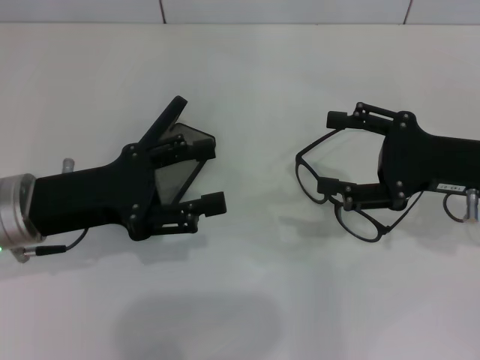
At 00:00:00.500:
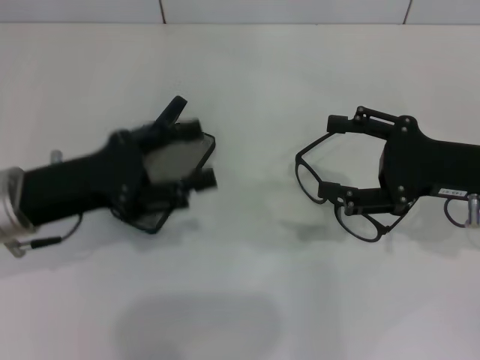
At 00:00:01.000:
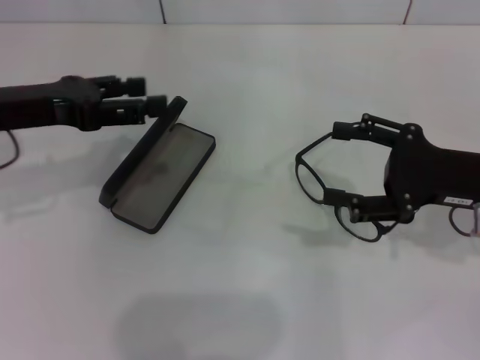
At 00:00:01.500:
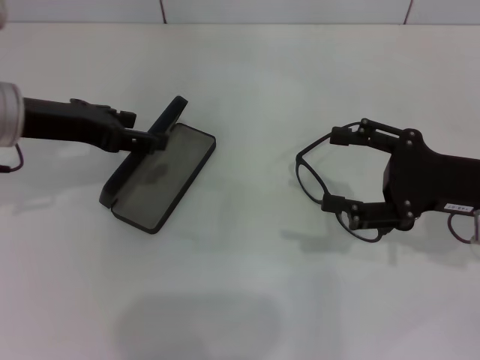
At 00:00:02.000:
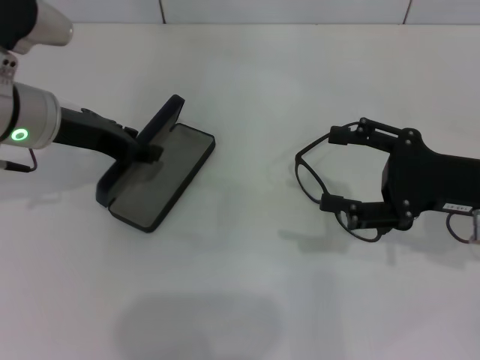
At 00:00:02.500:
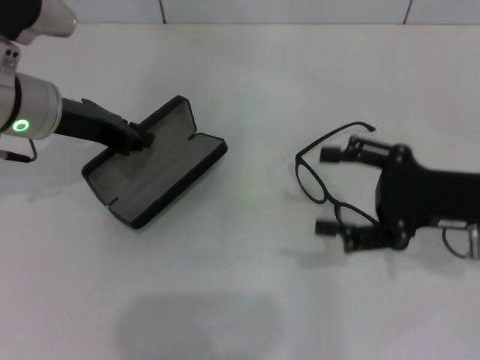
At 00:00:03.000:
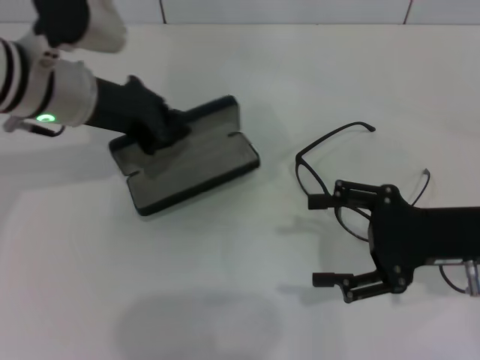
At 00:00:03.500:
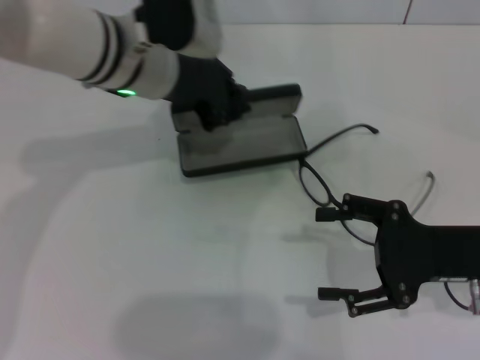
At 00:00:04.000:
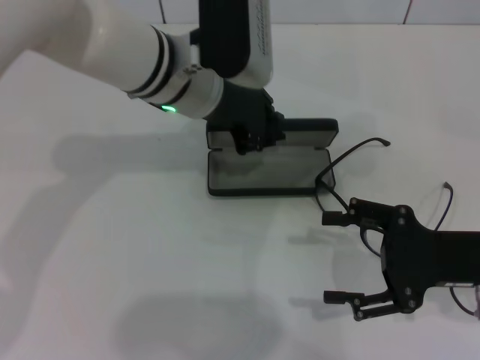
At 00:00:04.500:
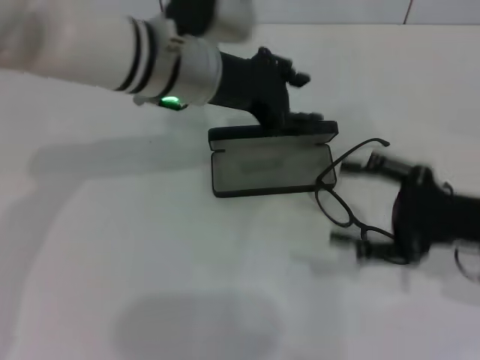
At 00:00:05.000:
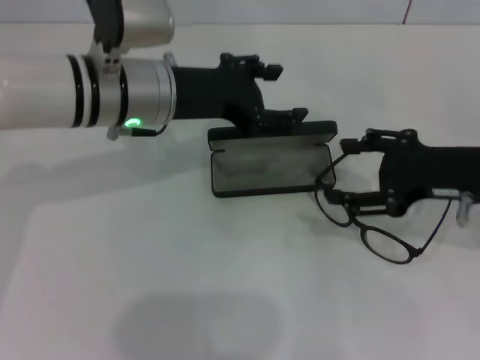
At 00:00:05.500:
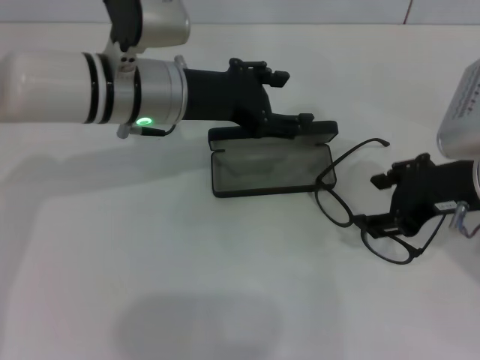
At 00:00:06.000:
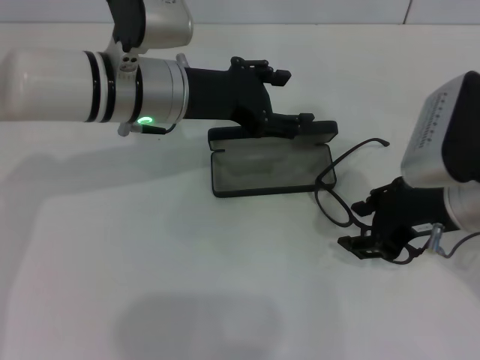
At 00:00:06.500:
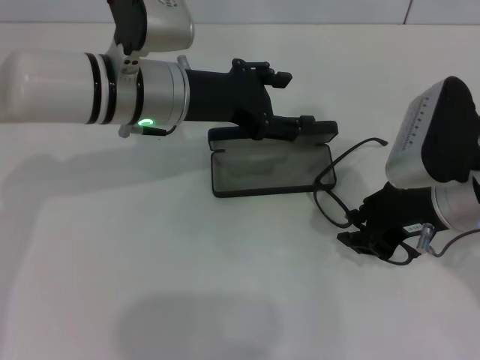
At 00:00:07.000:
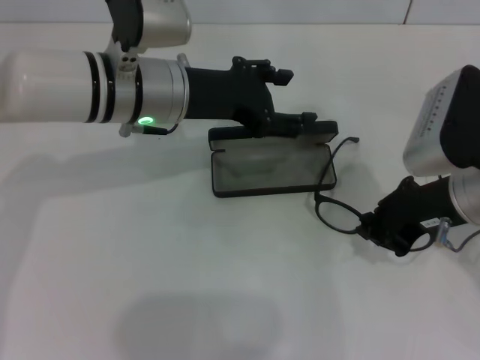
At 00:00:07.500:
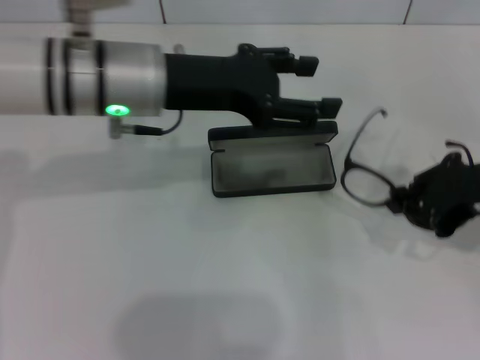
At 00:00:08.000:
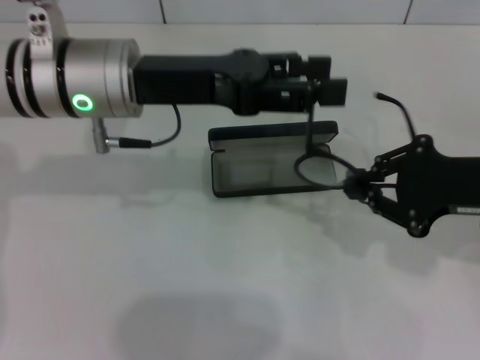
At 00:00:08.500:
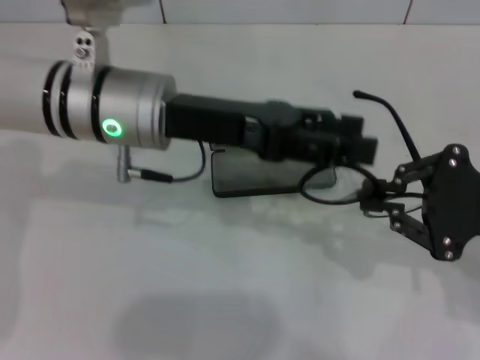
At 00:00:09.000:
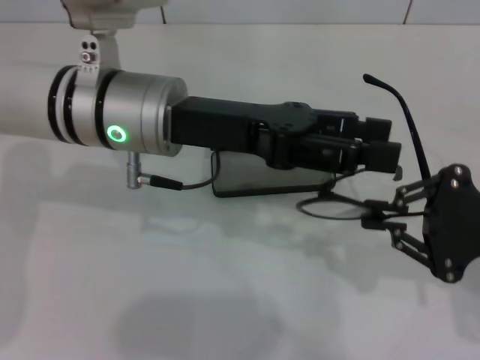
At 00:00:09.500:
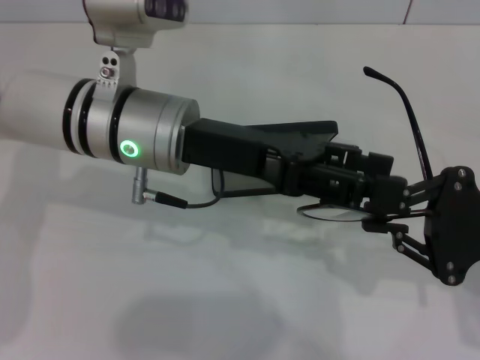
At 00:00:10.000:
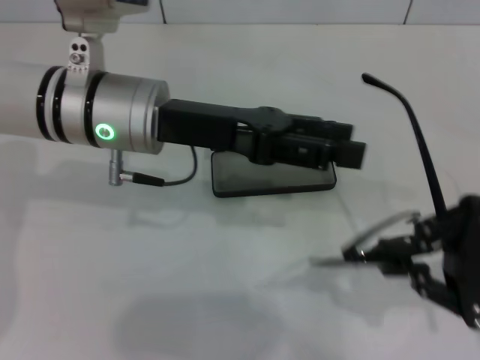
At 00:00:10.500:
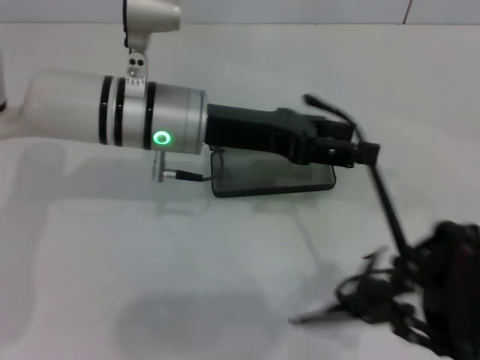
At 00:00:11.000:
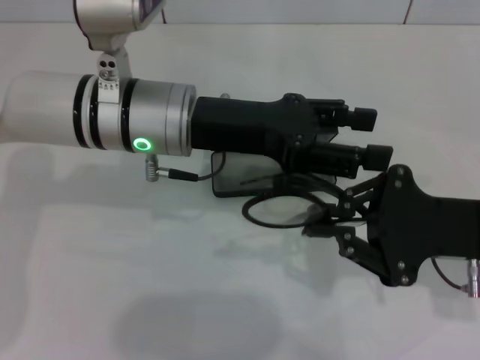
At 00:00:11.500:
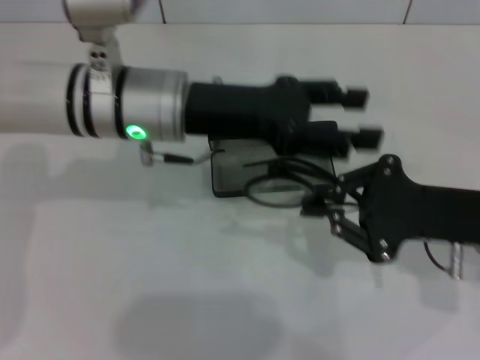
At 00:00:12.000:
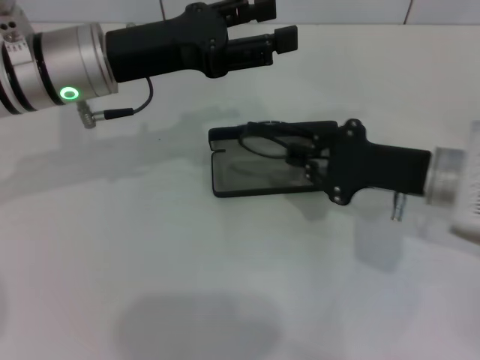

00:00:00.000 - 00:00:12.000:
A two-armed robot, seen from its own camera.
Step, 00:00:00.000 - 00:00:01.500: Grab the glasses case with your left hand.
Step, 00:00:02.500 - 00:00:04.000: Place the glasses case in the center of the table with your left hand.
Step, 00:00:04.500 - 00:00:06.500: Grab the eyeglass frame with your right hand.
Step, 00:00:07.000 - 00:00:11.000: Fold the frame with your left hand.
00:00:00.000 - 00:00:02.000: The left gripper heads forward, covering roughly 10 cm.
00:00:02.000 - 00:00:04.000: The left gripper shifts some 15 cm to the right, and closes up.
00:00:04.000 - 00:00:06.000: The right gripper travels upward and to the left by approximately 10 cm, while the left gripper opens up.
00:00:06.000 - 00:00:08.000: The right gripper shifts roughly 5 cm to the right, and closes.
00:00:08.000 - 00:00:10.000: The right gripper ends up roughly 5 cm from where it was.
00:00:10.000 - 00:00:12.000: The right gripper heads forward and to the left, covering approximately 10 cm. Meanwhile the left gripper shifts by approximately 5 cm.

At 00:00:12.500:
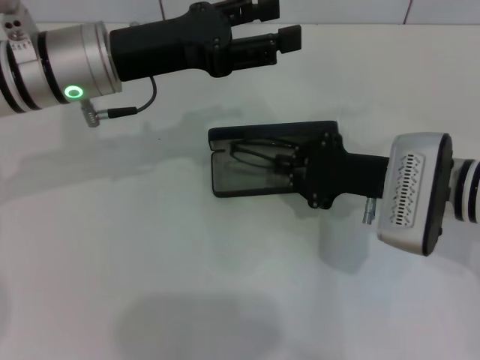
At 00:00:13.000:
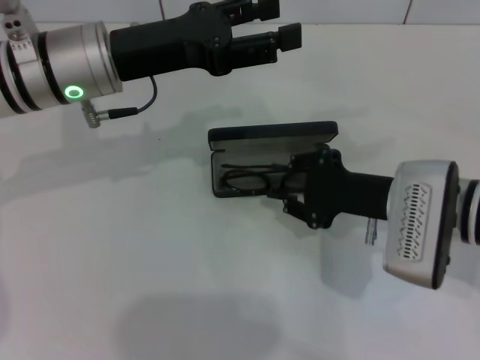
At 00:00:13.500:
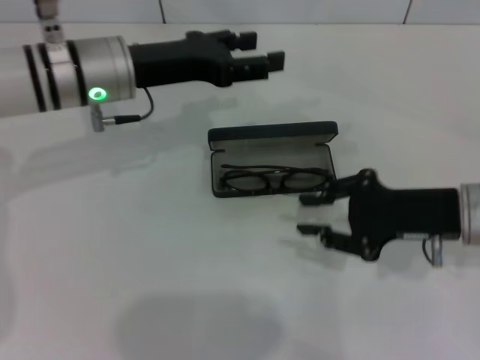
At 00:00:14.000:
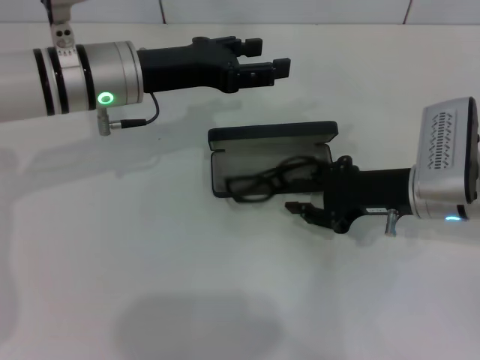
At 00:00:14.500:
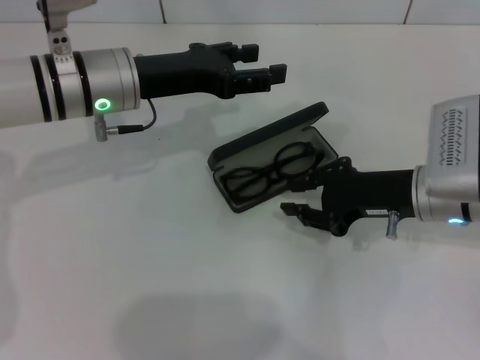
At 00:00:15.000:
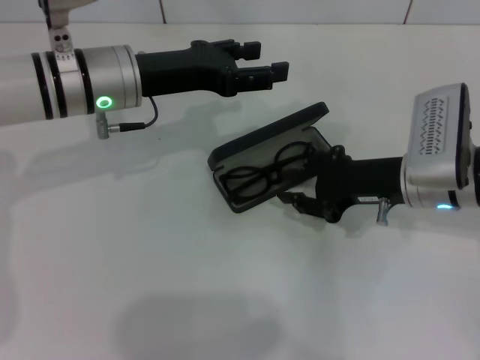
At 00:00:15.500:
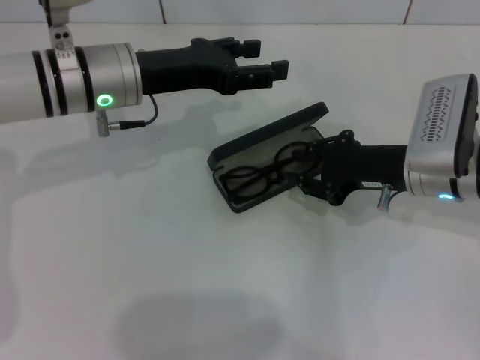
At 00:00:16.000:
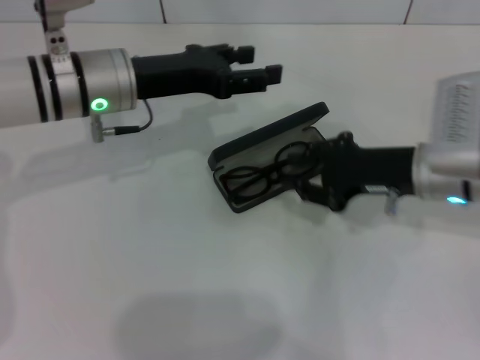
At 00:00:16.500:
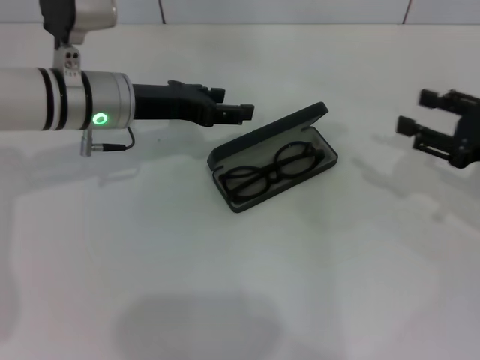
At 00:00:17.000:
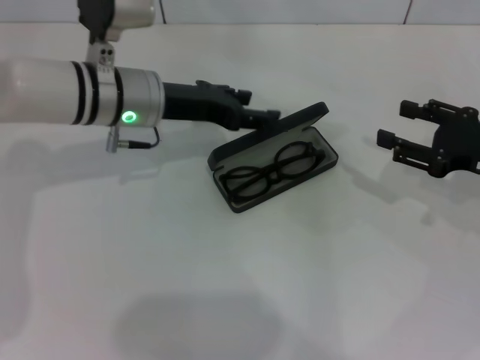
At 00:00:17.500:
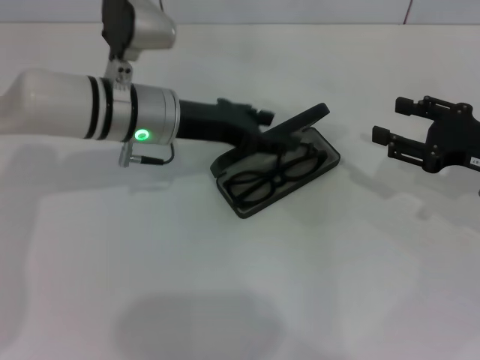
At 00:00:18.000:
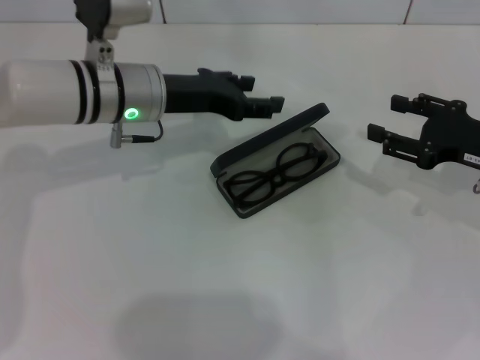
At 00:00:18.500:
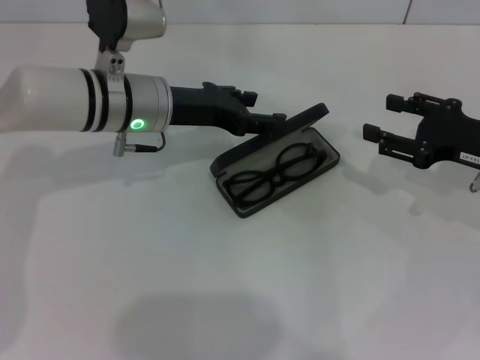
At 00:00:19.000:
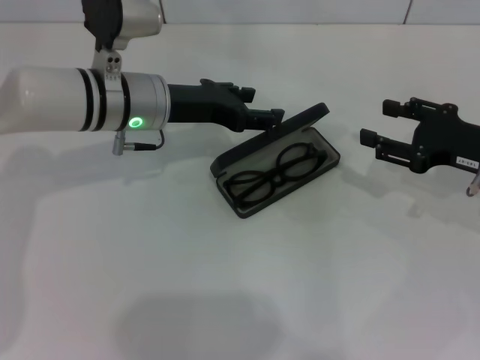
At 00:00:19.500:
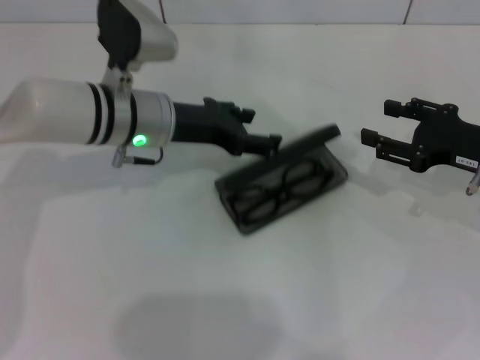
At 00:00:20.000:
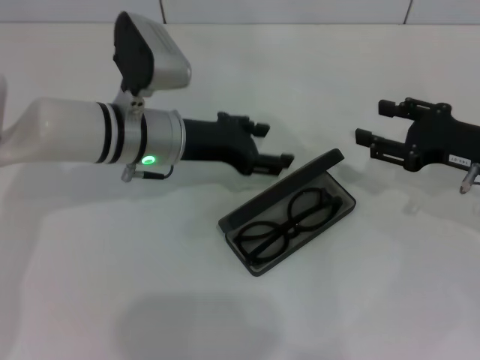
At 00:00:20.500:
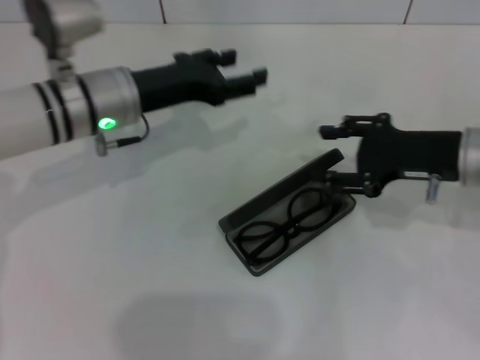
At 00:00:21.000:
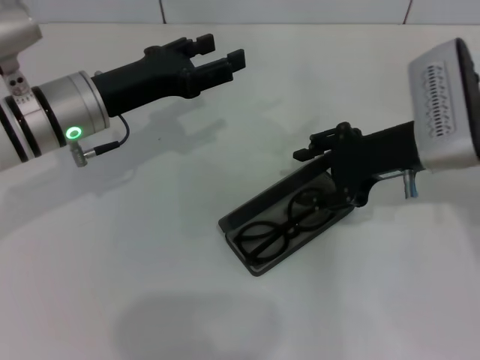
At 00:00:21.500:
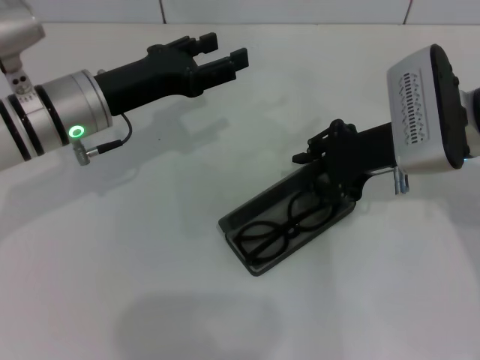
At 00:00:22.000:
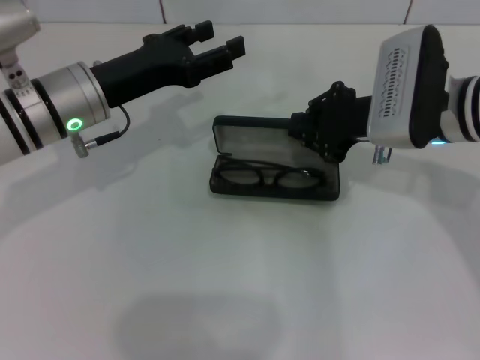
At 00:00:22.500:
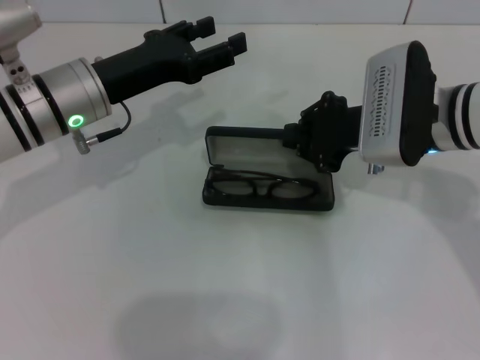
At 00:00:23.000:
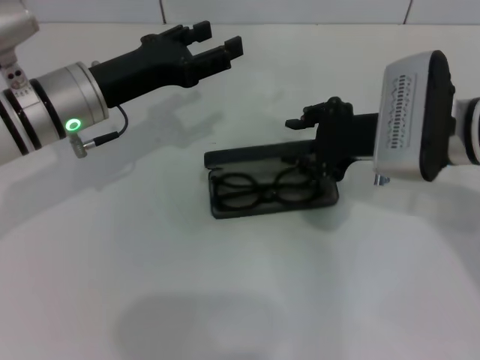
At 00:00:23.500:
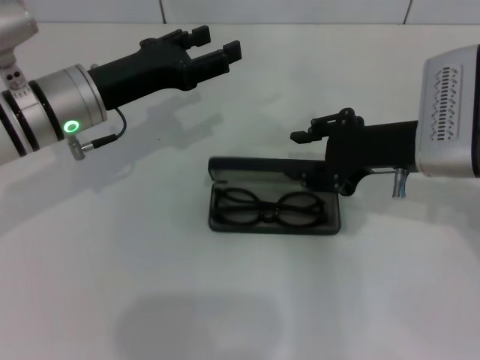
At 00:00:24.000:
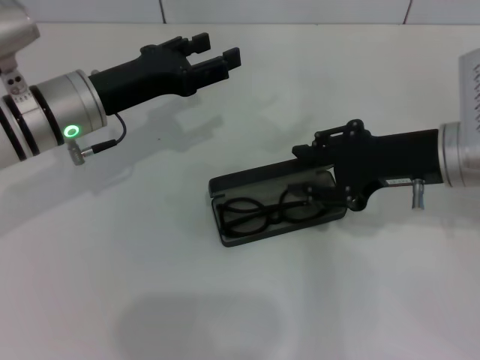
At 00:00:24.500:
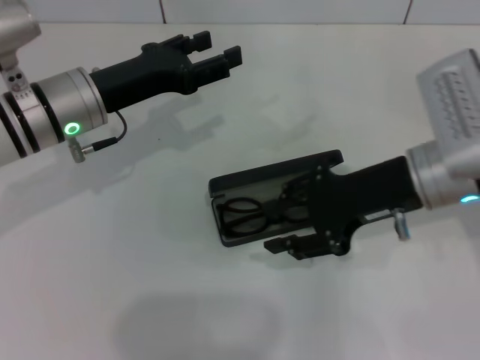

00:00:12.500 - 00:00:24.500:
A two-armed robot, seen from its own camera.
Step, 00:00:13.000 - 00:00:21.000: Grab the glasses case with your right hand.
Step, 00:00:21.500 - 00:00:23.500: Place the glasses case in the center of the table with your right hand.
00:00:14.500 - 00:00:16.500: The right gripper goes some 10 cm to the right.
00:00:16.500 - 00:00:18.500: The grippers move only a little.
00:00:18.500 - 00:00:20.500: The right gripper heads to the left, covering about 5 cm.
00:00:20.500 - 00:00:22.500: The right gripper shifts roughly 5 cm to the left, and closes up.
00:00:22.500 - 00:00:24.500: The right gripper opens.

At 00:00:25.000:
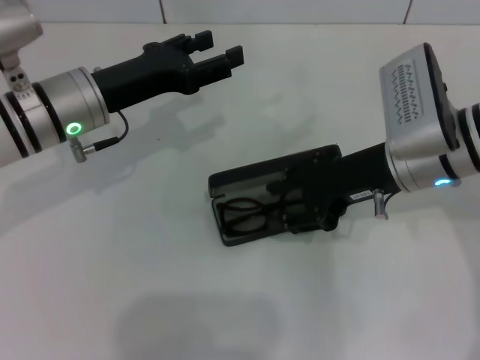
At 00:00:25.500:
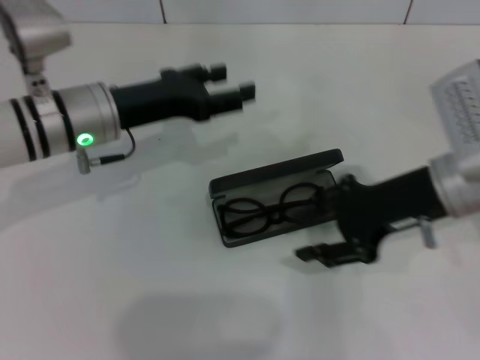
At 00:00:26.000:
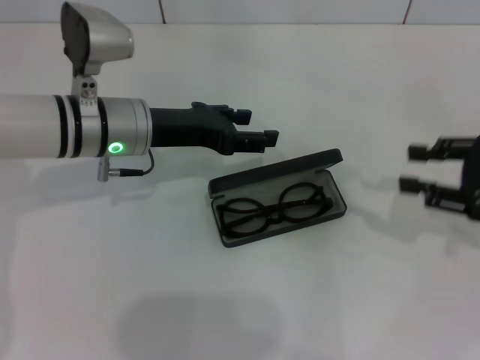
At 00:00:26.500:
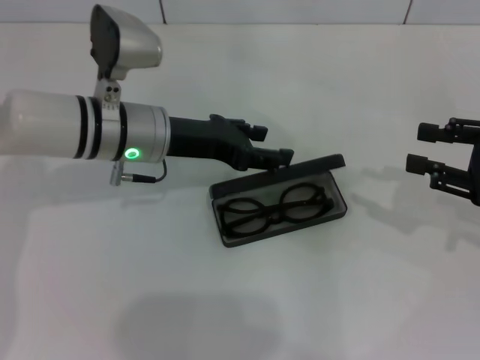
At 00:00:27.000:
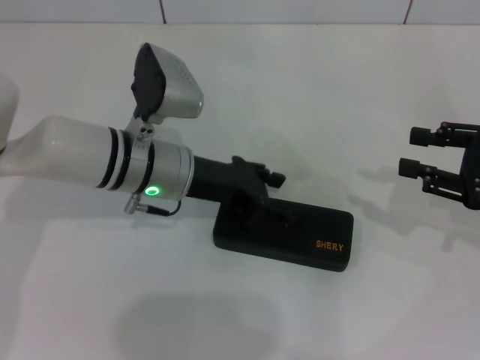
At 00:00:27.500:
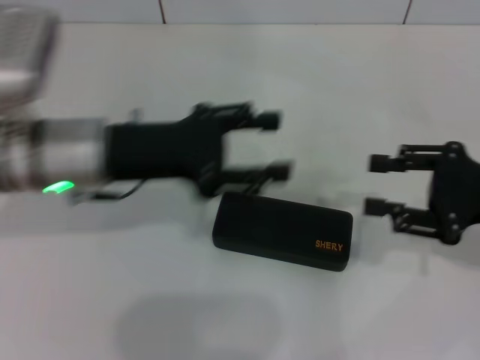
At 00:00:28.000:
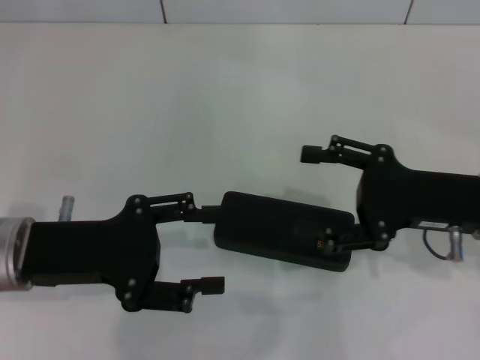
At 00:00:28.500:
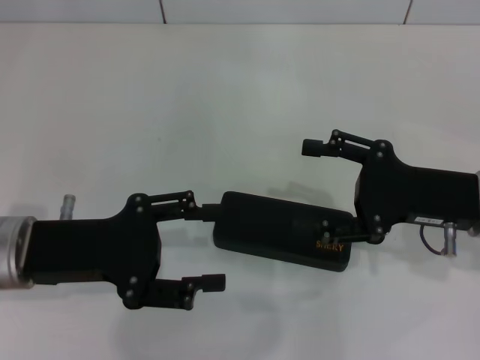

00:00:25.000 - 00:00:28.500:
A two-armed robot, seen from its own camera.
00:00:25.000 - 00:00:27.000: The right gripper is displaced to the right by about 15 cm; the left gripper goes about 10 cm to the right.
00:00:27.000 - 00:00:28.500: The left gripper travels to the left and backward by some 15 cm. Meanwhile the right gripper travels to the left by some 10 cm, and opens its fingers.
